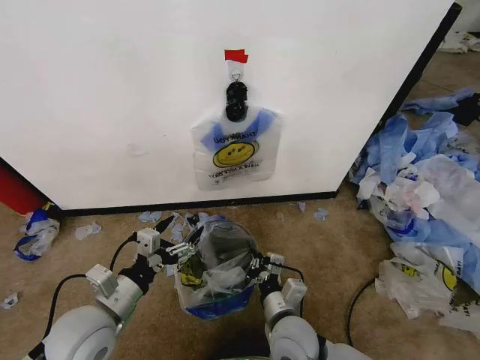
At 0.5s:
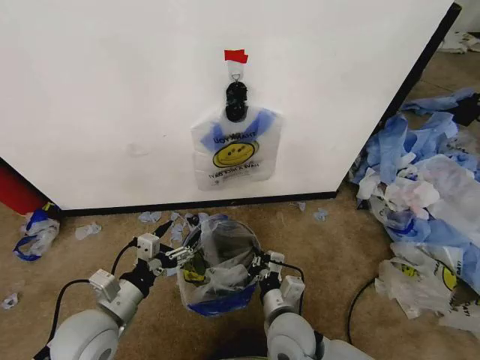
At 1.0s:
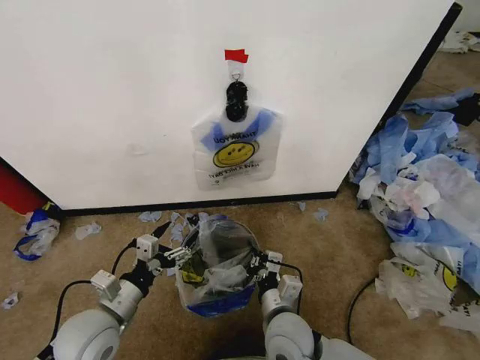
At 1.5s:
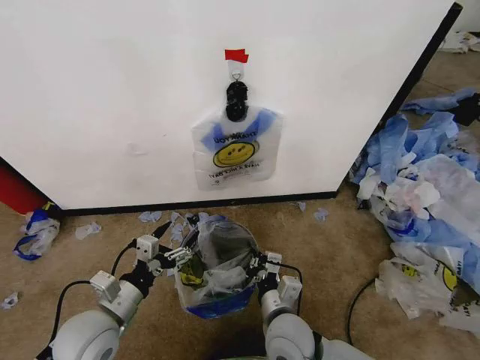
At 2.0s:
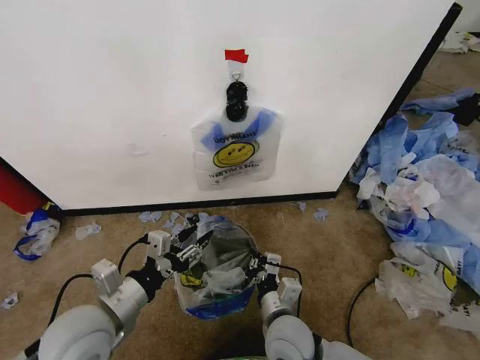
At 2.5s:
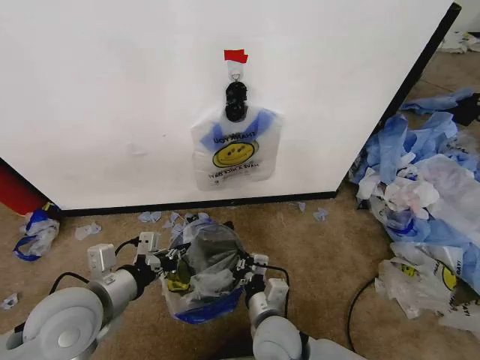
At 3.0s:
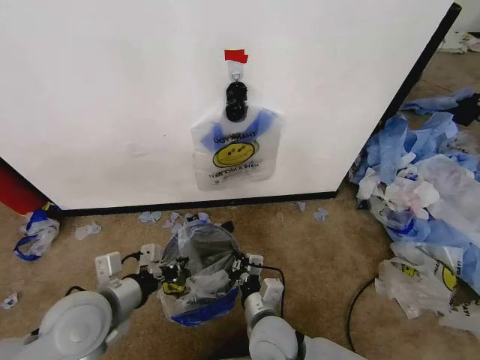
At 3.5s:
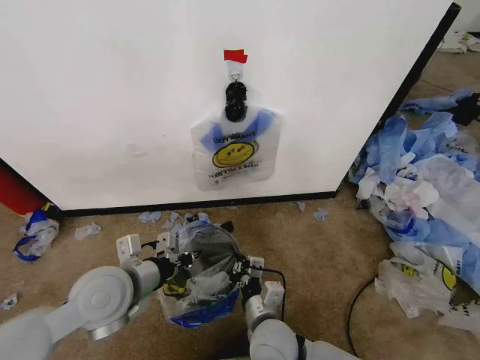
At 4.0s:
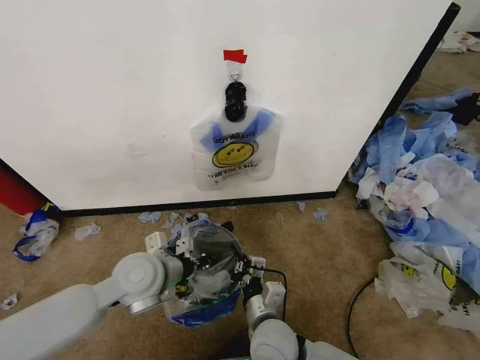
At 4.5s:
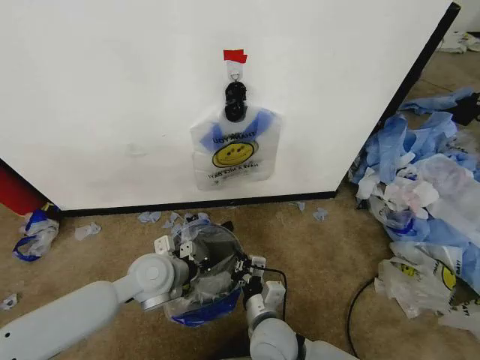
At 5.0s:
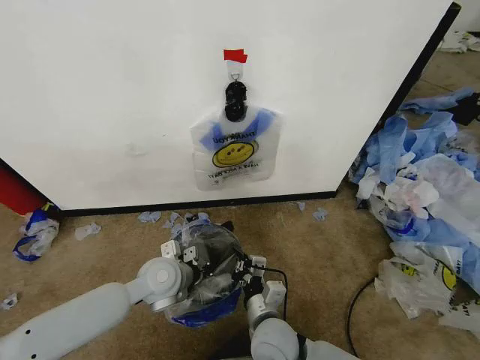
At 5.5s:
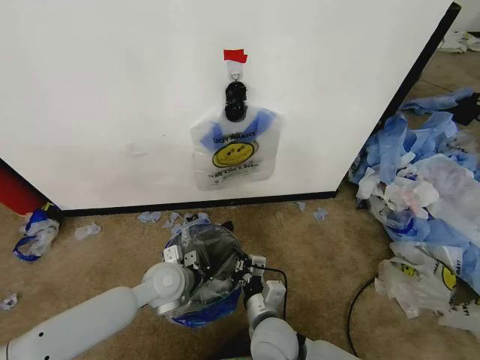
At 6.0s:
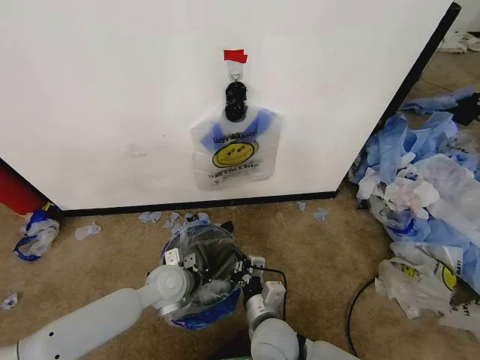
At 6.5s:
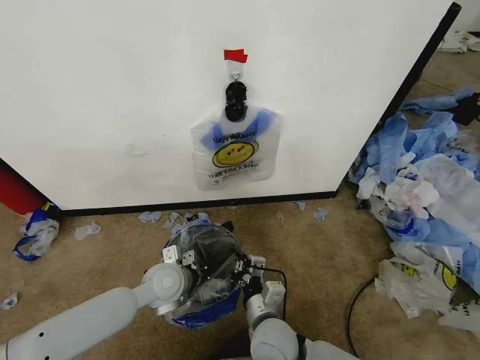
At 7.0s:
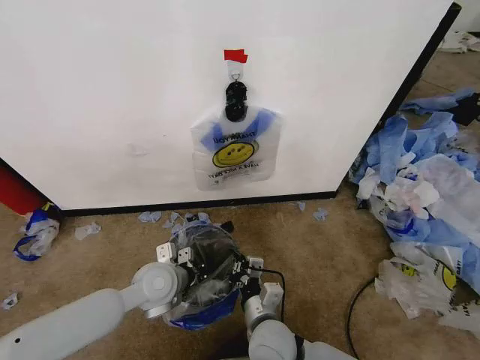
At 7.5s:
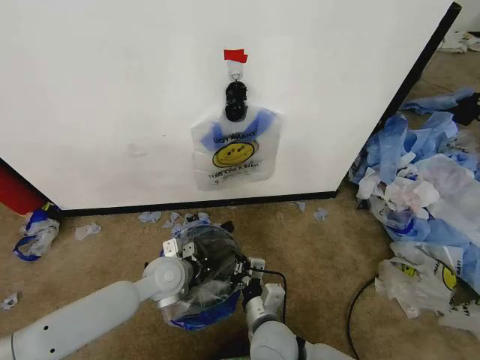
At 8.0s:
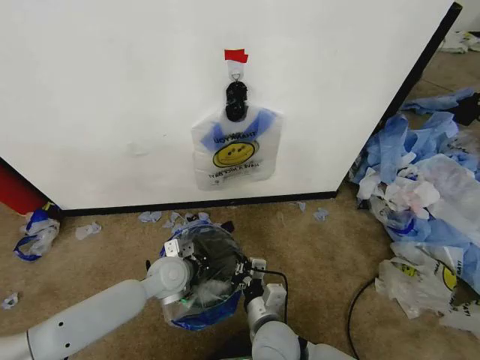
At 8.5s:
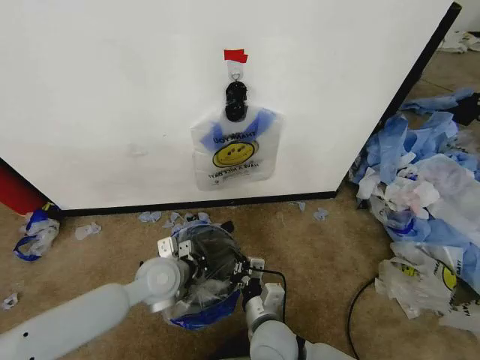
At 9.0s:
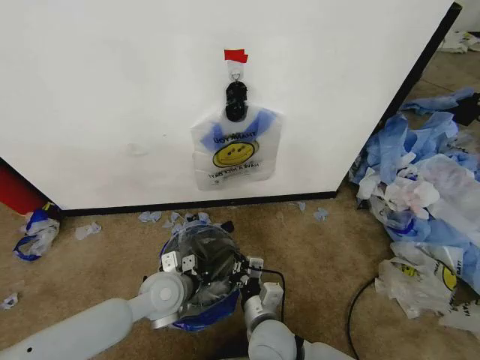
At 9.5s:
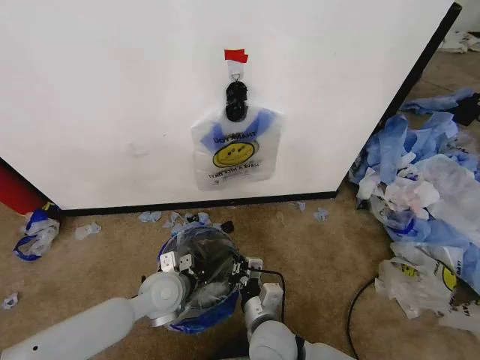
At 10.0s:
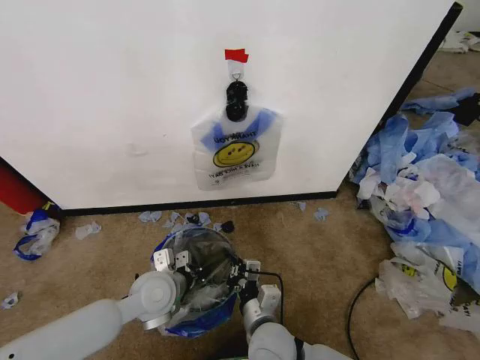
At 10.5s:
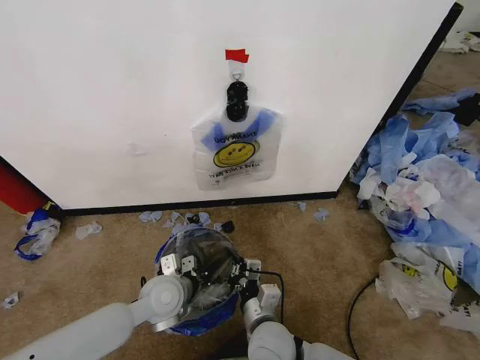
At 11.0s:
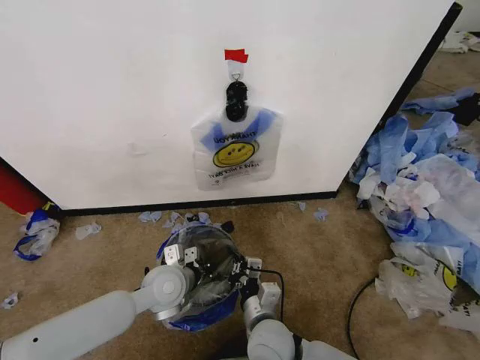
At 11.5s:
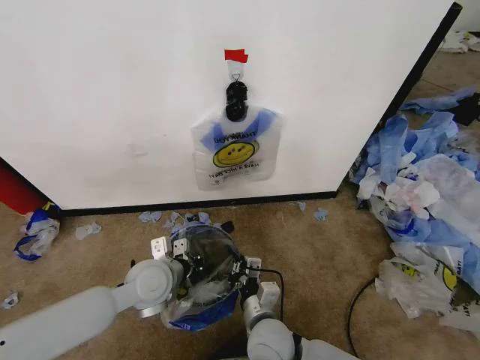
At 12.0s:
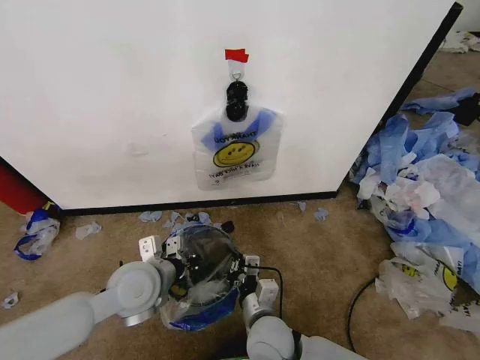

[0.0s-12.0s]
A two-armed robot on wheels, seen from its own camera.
Task of the whole recording: Pick up the garbage bag from the wall and place it over the trash bin.
0.0s to 2.0s: The left gripper closes up.
2.0s to 4.0s: The left gripper goes roughly 10 cm forward, and closes.
4.0s to 6.0s: The left gripper heads downward, covering about 10 cm.
6.0s to 8.0s: The grippers move only a little.
8.0s to 10.0s: The left gripper goes some 5 cm backward.
10.0s to 12.0s: The left gripper travels upward by some 5 cm.

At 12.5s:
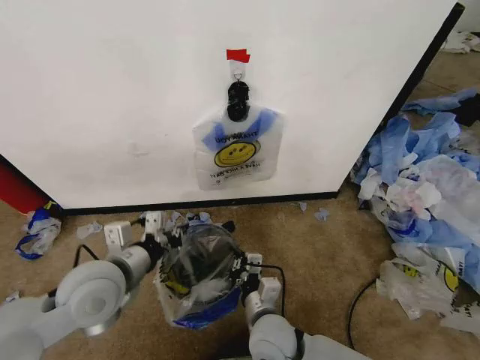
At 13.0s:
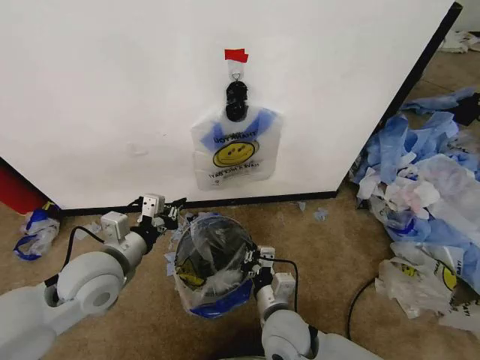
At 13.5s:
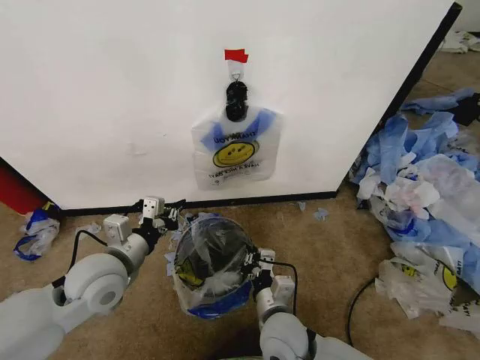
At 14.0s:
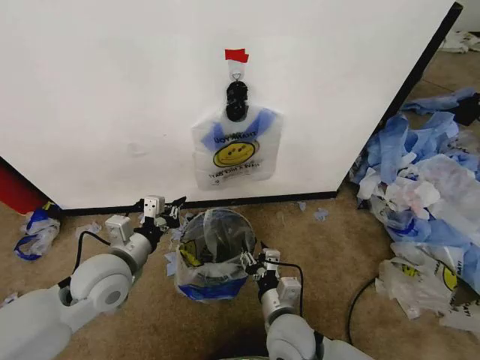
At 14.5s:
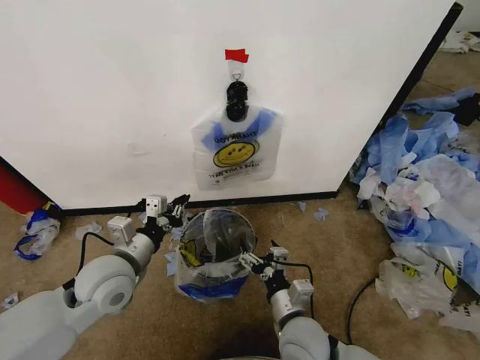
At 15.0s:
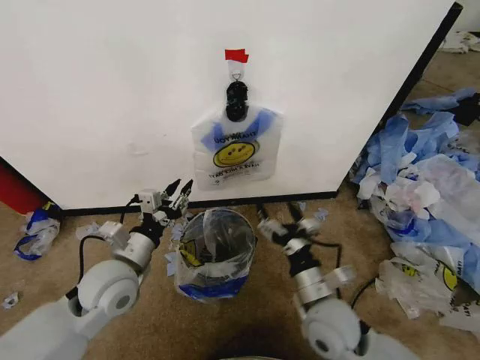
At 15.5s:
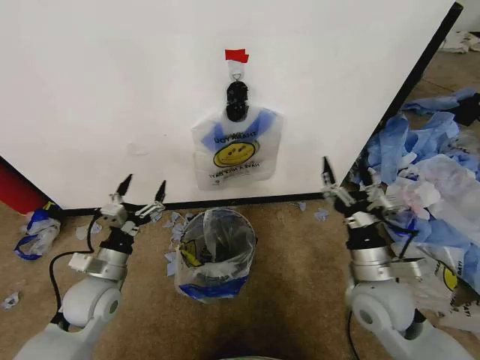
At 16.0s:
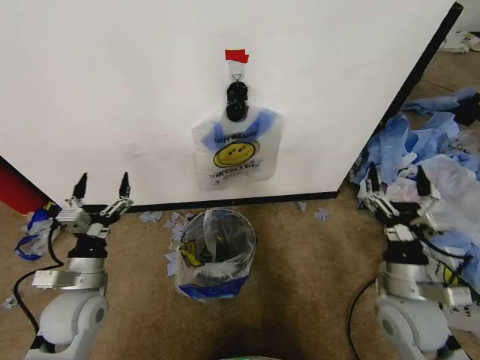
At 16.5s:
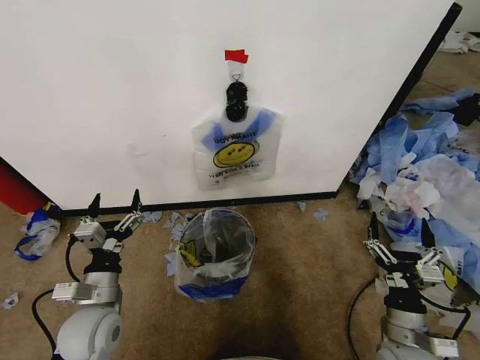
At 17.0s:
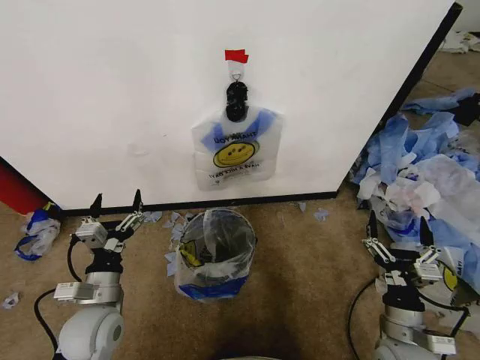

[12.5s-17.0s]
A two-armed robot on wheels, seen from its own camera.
Task of the whole recording: Pick up the garbage bag from the wall and place it over the trash bin.
12.5s to 14.5s: The right gripper goes about 5 cm to the right, and opens.
14.5s to 17.0s: The right gripper shifts some 20 cm to the right; the left gripper moves downward and backward, approximately 10 cm, and opens its fingers.

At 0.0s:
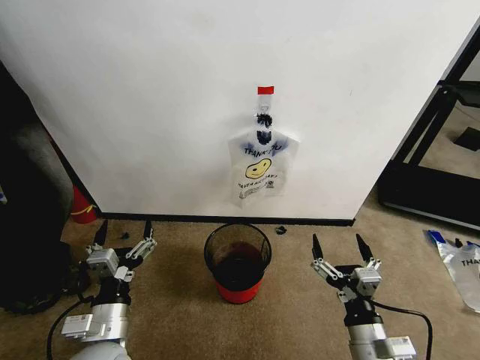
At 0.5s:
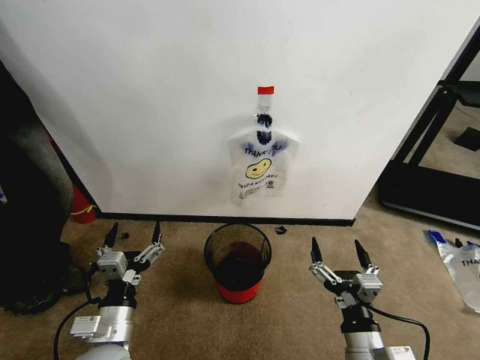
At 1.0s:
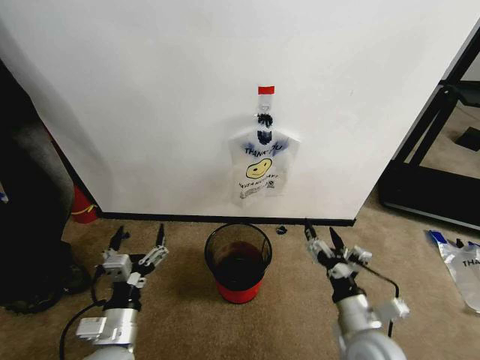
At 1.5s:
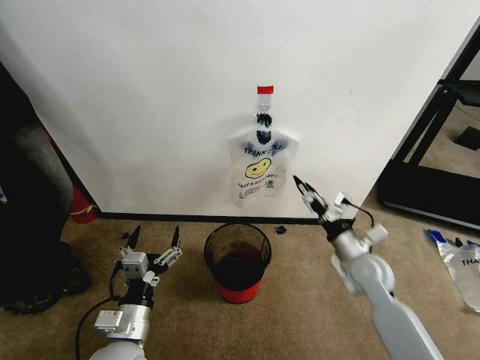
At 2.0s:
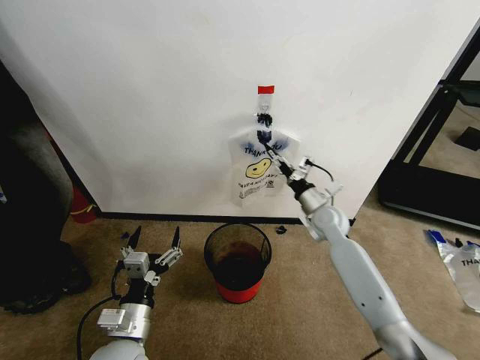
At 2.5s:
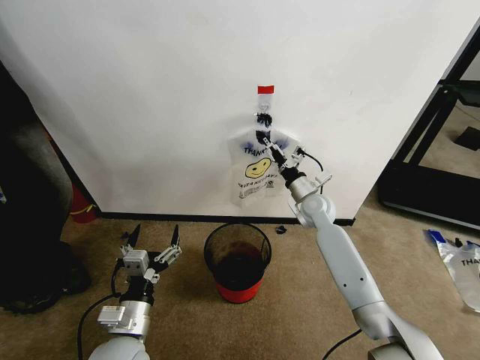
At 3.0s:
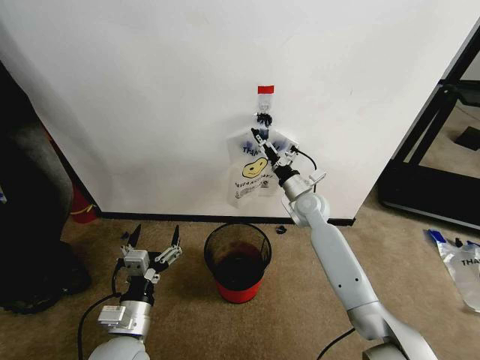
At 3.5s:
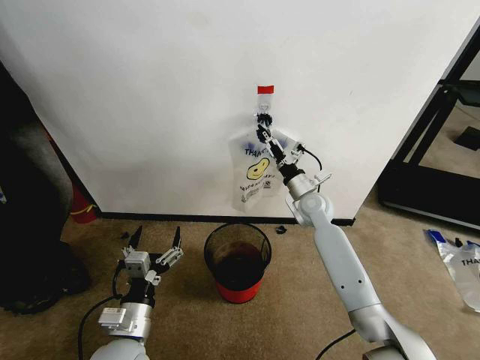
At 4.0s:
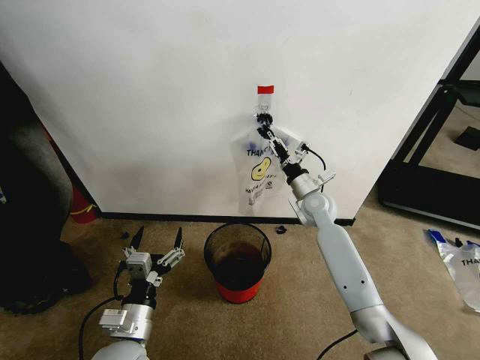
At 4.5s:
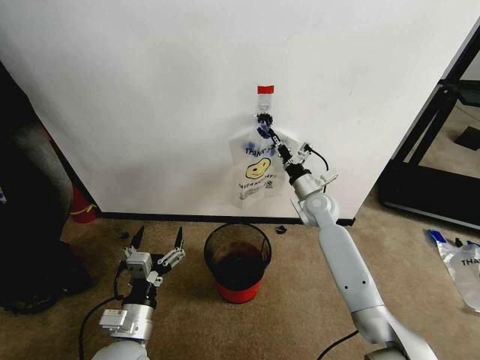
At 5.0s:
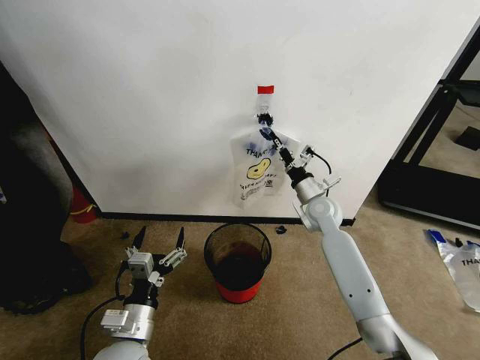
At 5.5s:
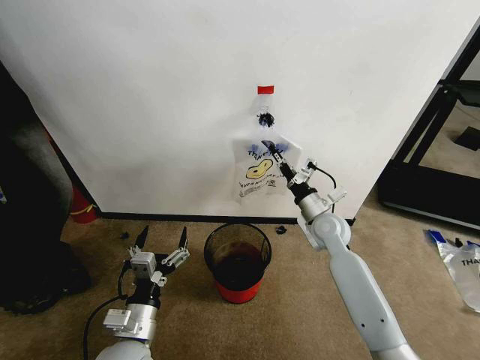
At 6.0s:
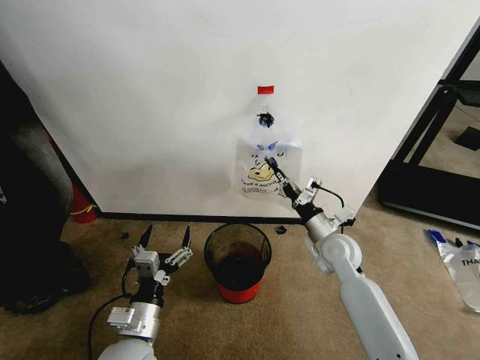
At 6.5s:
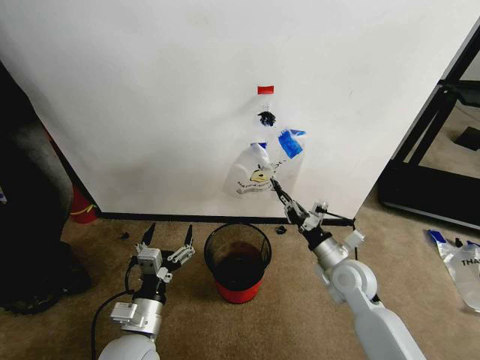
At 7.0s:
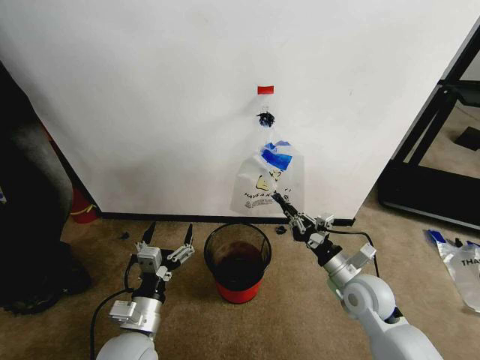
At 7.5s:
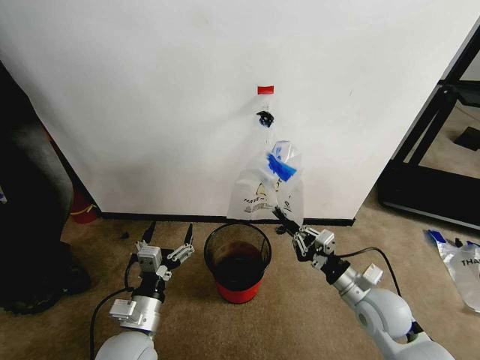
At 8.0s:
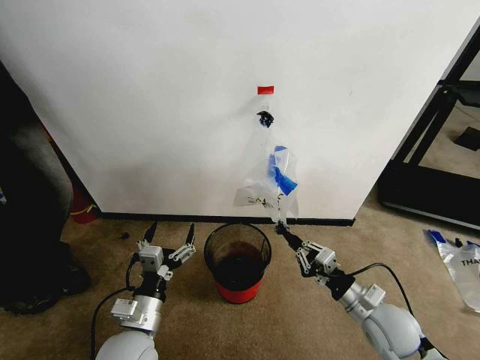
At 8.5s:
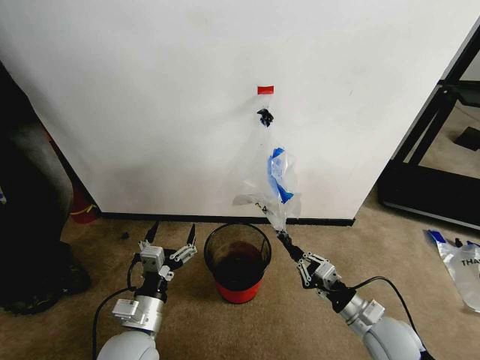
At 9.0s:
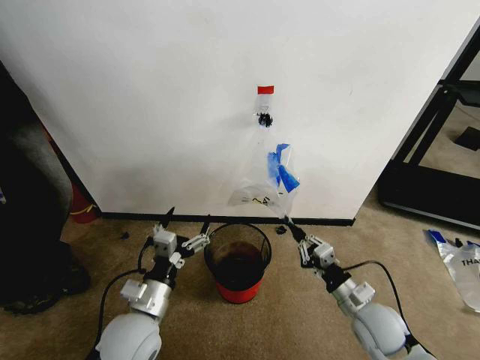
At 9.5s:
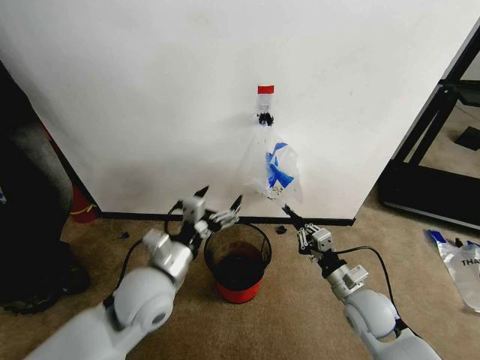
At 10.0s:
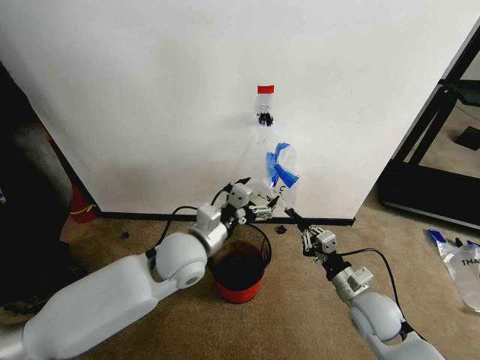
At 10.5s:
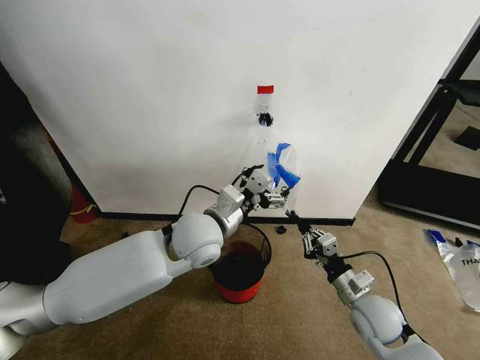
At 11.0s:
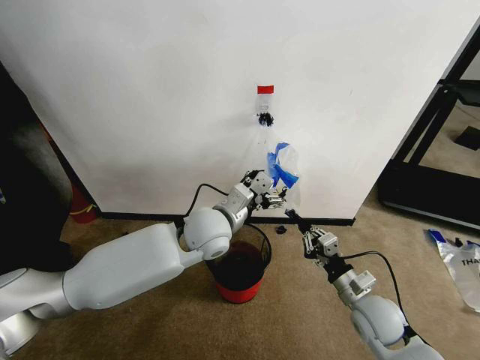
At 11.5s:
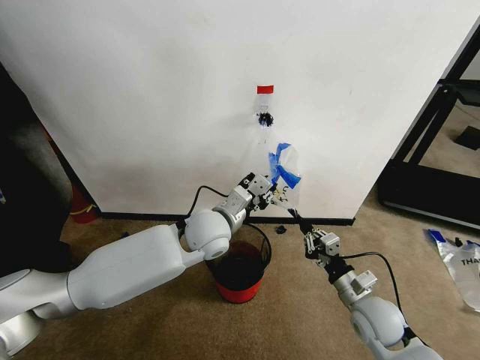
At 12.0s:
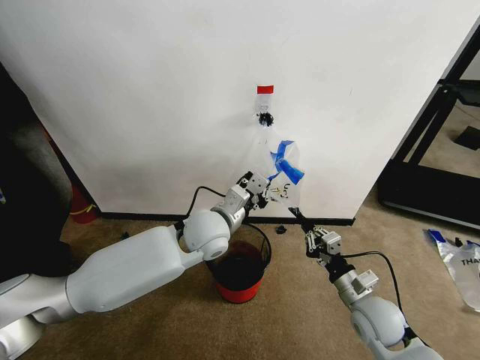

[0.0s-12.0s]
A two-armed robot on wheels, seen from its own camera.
Task of the whole recording: Pick up the garbage bag from the wall and place it over the trash bin.
2.0s to 4.0s: The right gripper closes its fingers.
4.0s to 6.0s: The right gripper is displaced backward by approximately 10 cm, and closes its fingers.
6.0s to 8.0s: The right gripper travels backward and to the right by approximately 15 cm.
8.0s to 10.0s: The left gripper goes roughly 20 cm forward, upward and to the right.
10.0s to 12.0s: The left gripper is displaced forward by some 5 cm, and closes its fingers.
